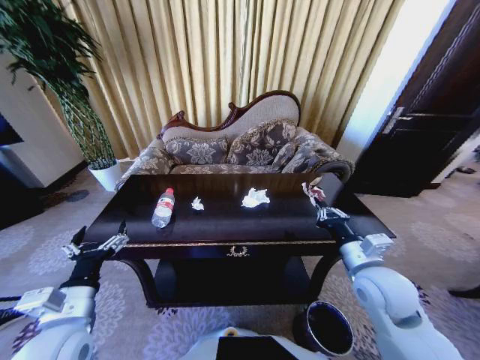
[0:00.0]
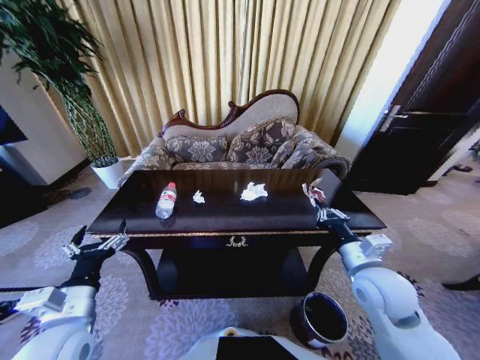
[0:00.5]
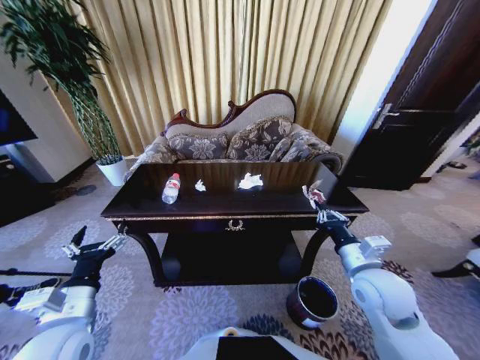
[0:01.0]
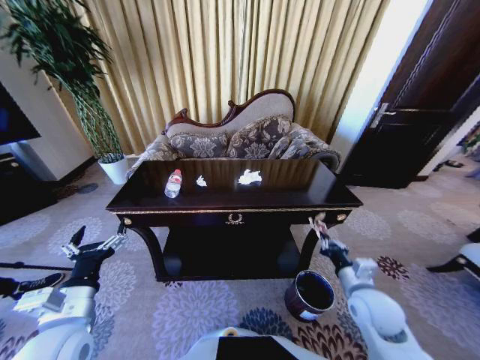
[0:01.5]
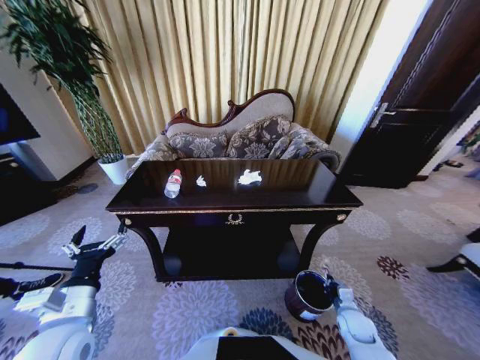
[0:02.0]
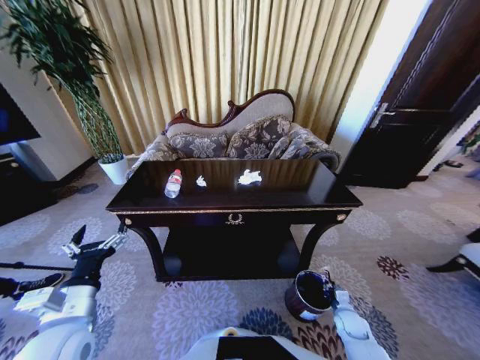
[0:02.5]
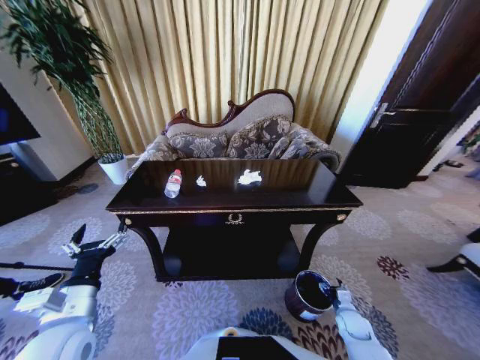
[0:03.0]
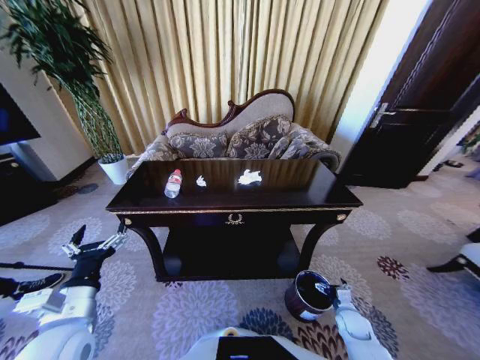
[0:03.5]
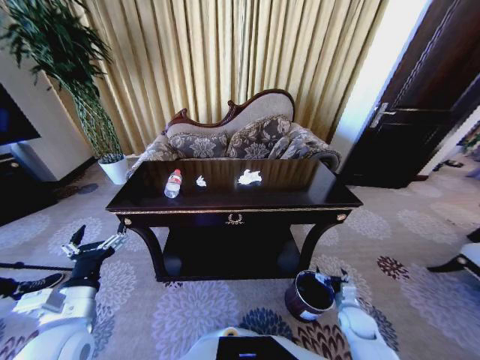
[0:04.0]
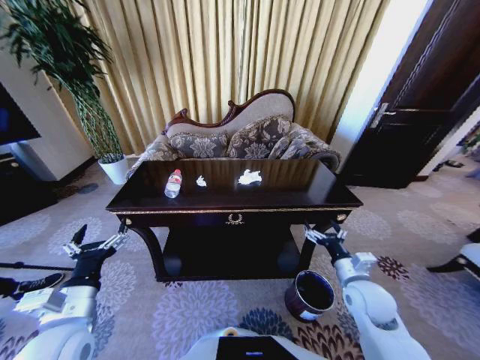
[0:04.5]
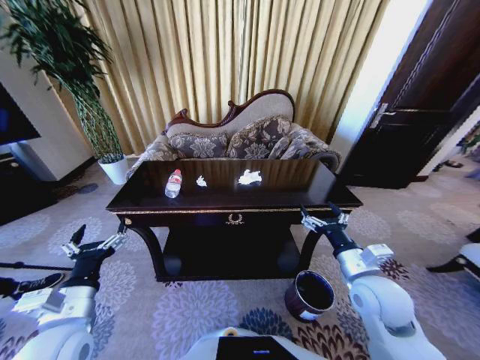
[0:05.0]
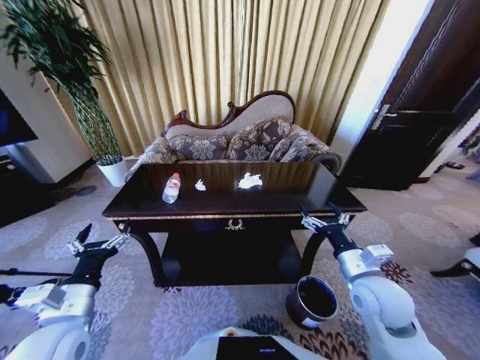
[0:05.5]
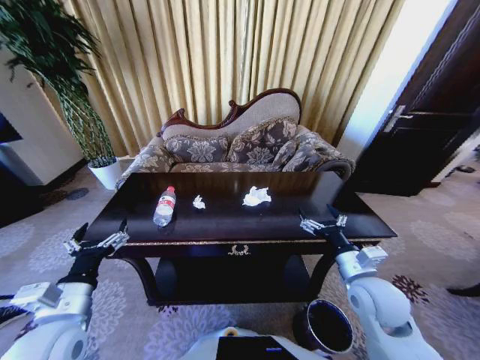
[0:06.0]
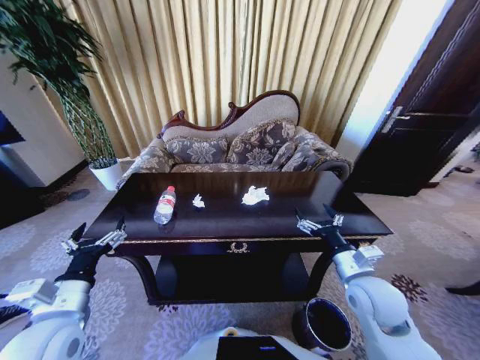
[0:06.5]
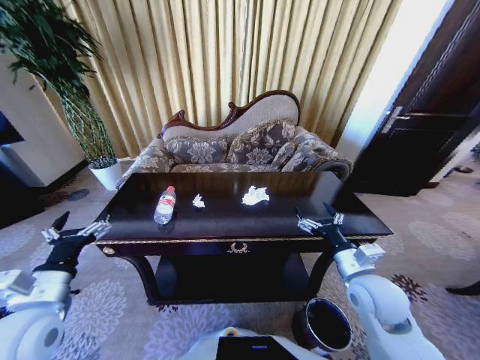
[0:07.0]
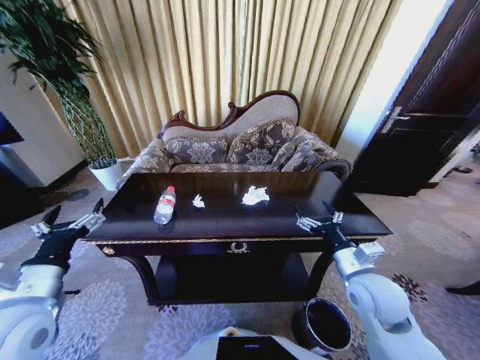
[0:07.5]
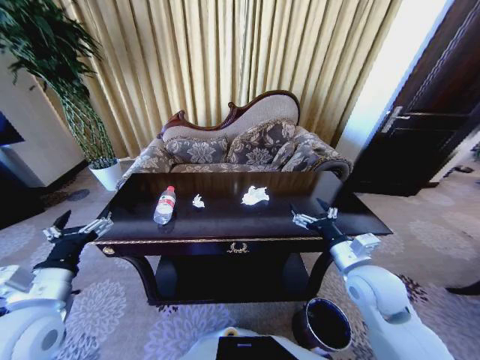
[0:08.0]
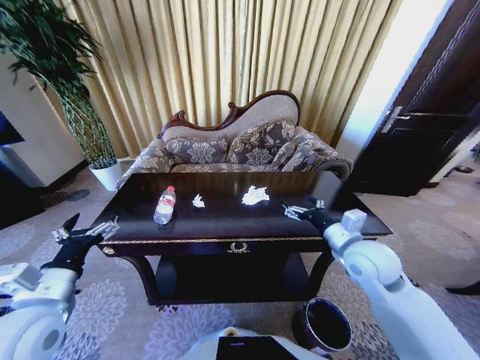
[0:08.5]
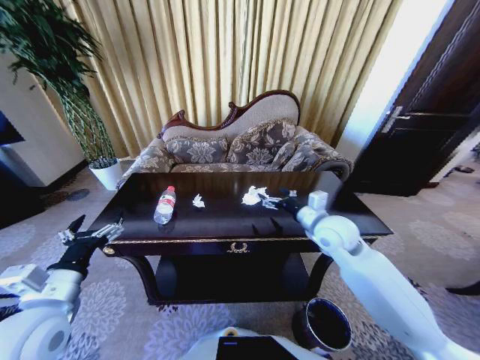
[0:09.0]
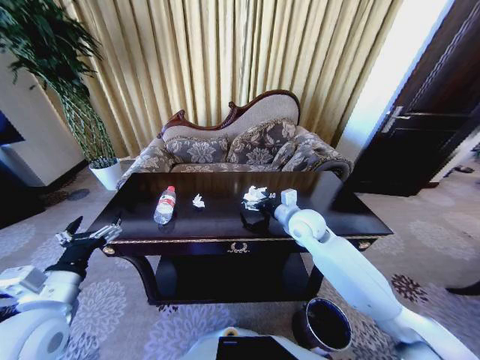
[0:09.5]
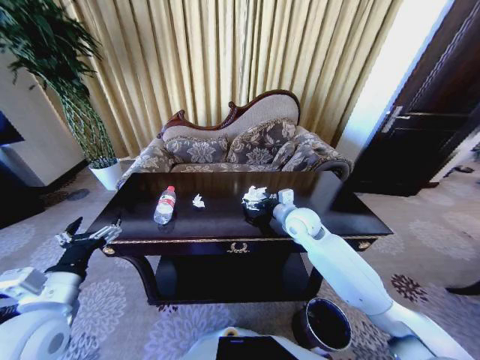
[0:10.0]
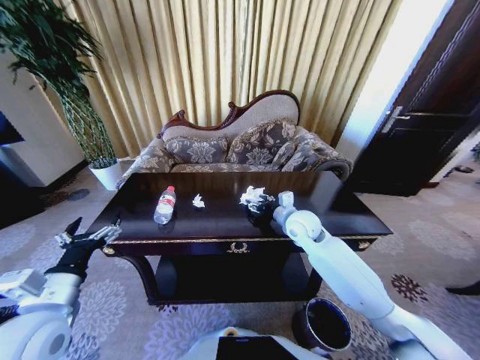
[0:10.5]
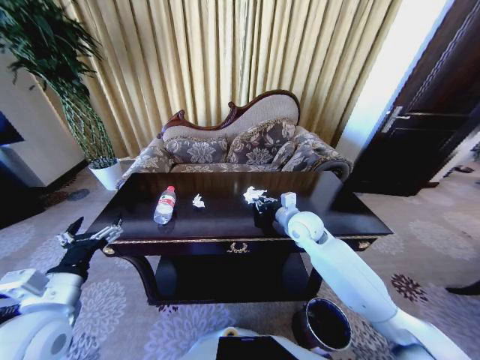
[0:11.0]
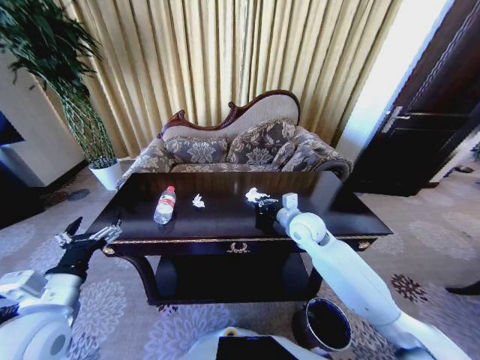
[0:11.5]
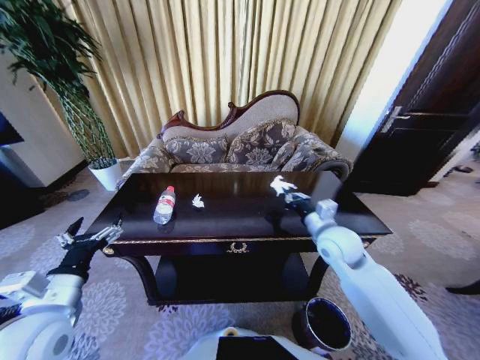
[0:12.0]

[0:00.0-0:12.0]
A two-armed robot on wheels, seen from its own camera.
Task of the whole recording: Move to the front of the table and place the trash on the table into the trash bin.
0:00.0 to 0:02.0: The right gripper moves downward, about 30 cm.
0:02.0 to 0:04.0: The right gripper opens.
0:04.0 to 0:06.0: The right gripper shifts approximately 25 cm upward.
0:08.0 to 0:10.0: The right gripper is displaced forward and to the left by roughly 20 cm.
0:10.0 to 0:12.0: The right gripper shifts some 10 cm backward and to the right, and closes up.

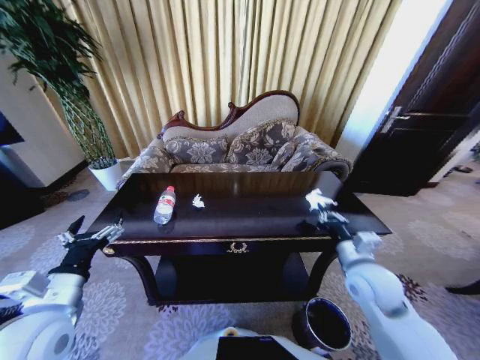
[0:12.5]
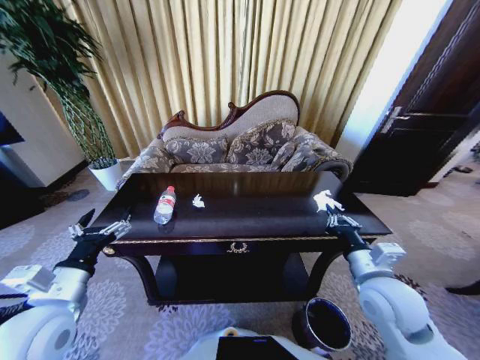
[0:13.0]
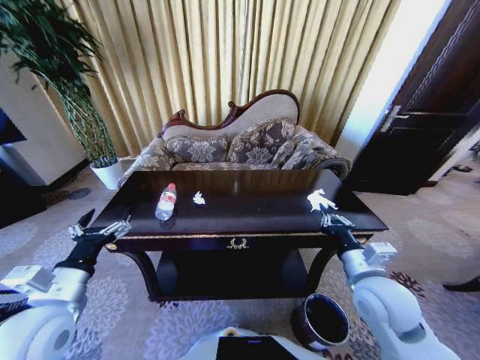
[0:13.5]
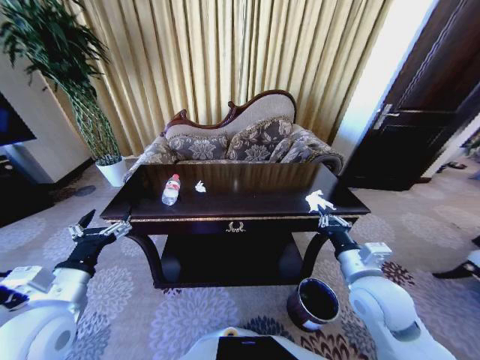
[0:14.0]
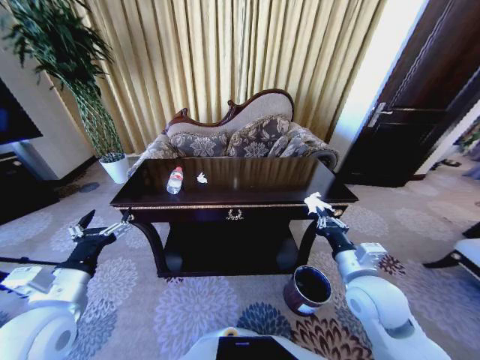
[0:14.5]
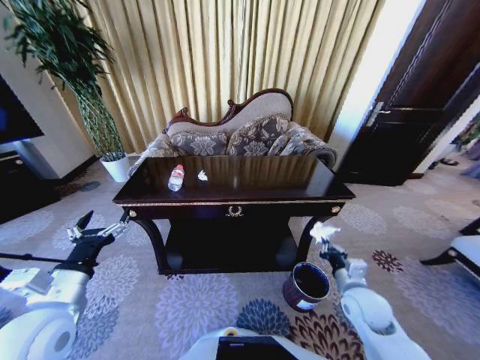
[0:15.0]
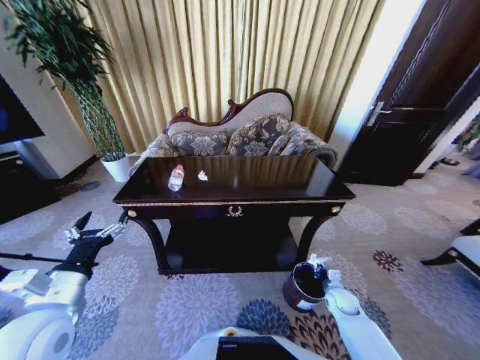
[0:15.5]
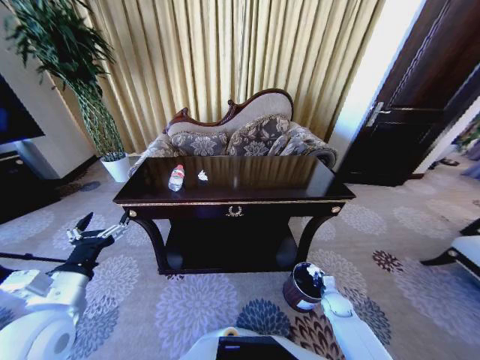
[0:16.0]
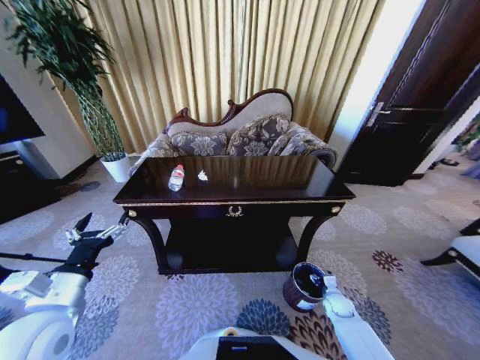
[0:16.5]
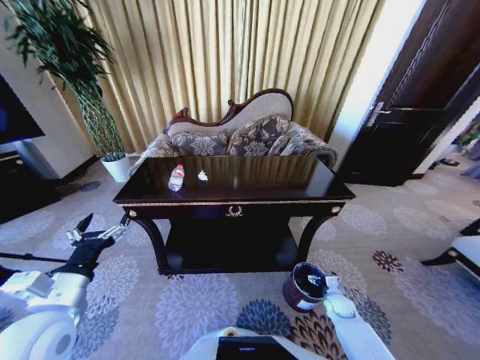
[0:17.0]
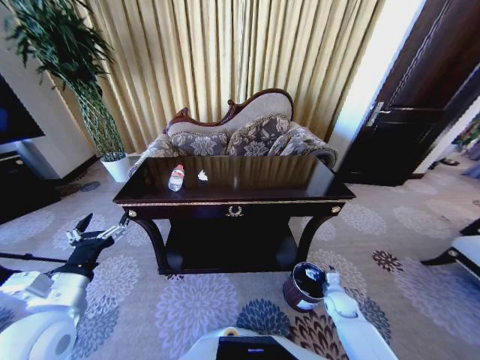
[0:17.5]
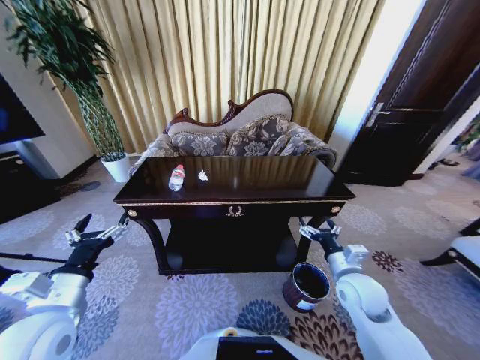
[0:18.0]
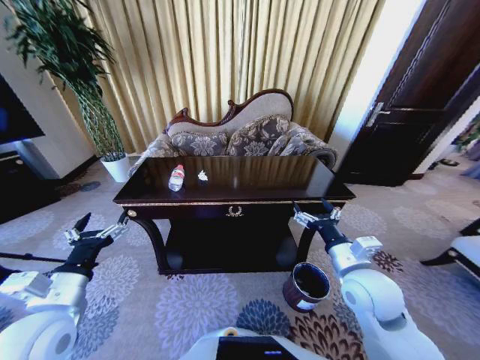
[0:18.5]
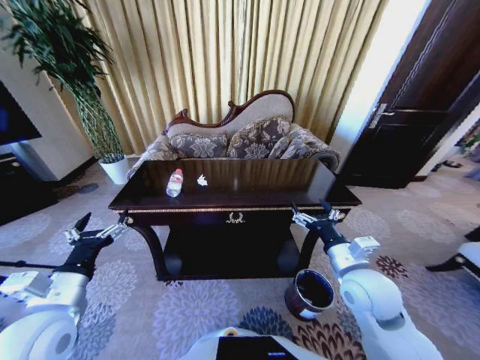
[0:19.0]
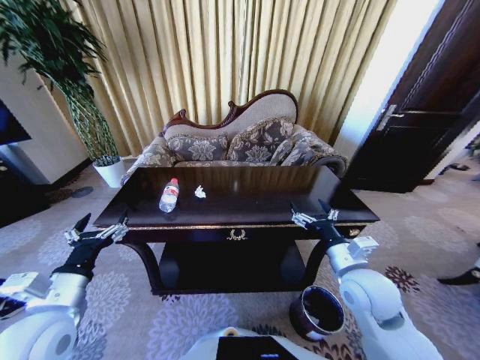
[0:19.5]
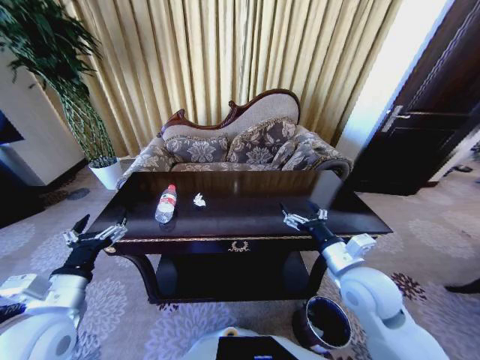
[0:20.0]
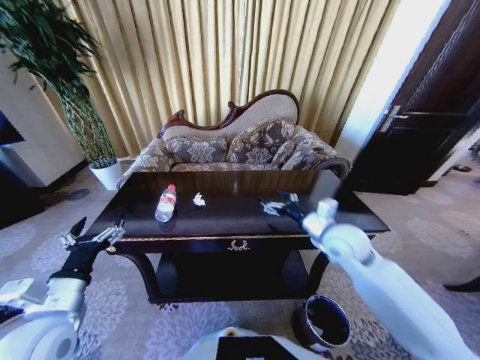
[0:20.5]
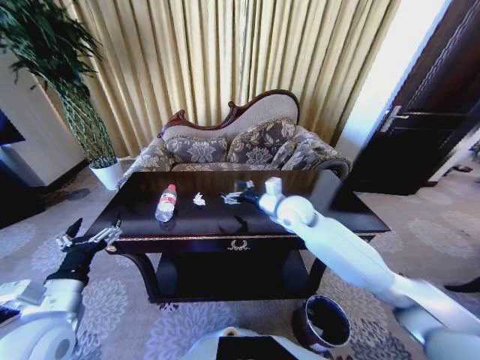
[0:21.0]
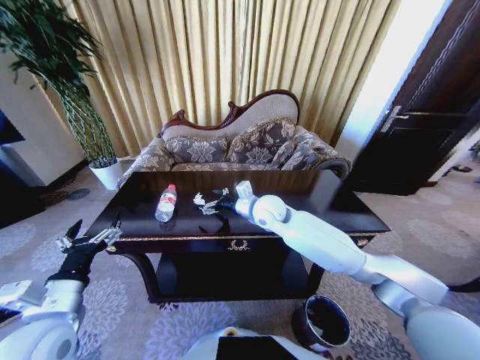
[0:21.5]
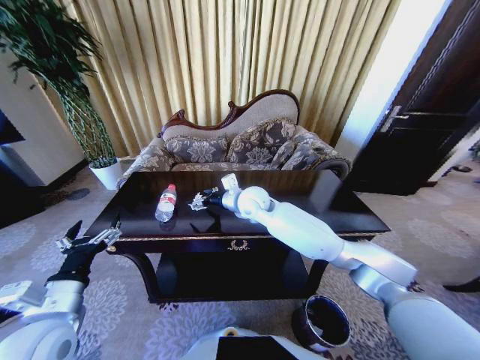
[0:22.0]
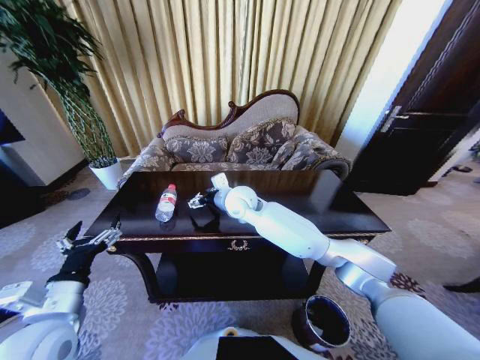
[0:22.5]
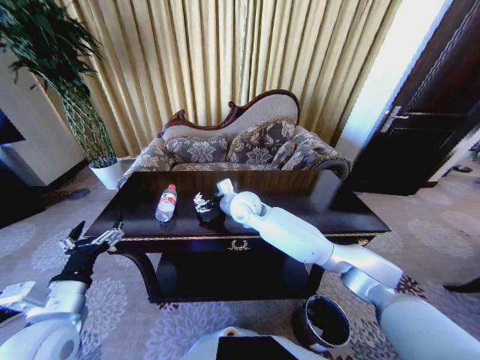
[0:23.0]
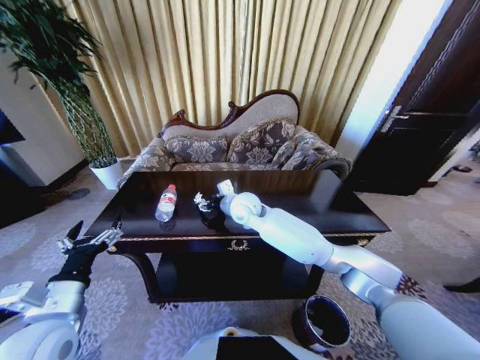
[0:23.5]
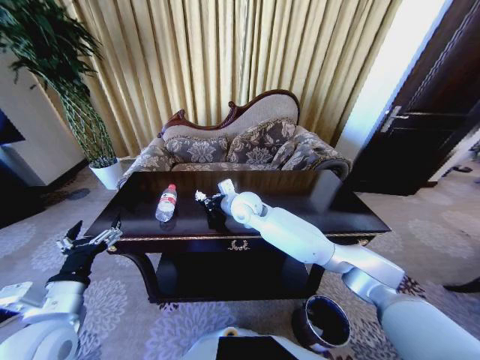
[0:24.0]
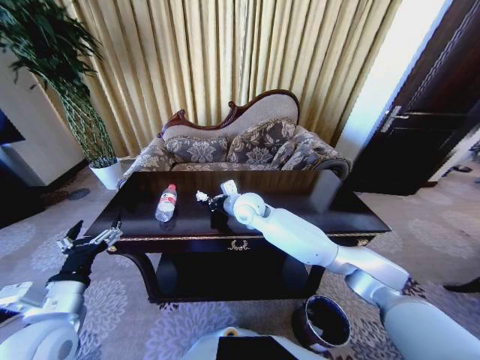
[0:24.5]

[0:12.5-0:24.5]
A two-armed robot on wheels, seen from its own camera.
Task of the whole recording: Move to the front of the table and place the trash on the table into the trash bin.
0:14.5 to 0:16.5: The right gripper moves downward, some 35 cm, and opens.
0:16.5 to 0:18.5: The right gripper shifts approximately 35 cm upward.
0:18.5 to 0:20.5: The right gripper is displaced forward by approximately 10 cm.
0:20.5 to 0:22.5: The right gripper travels to the left and forward by roughly 30 cm.
0:22.5 to 0:24.5: The right gripper closes its fingers.

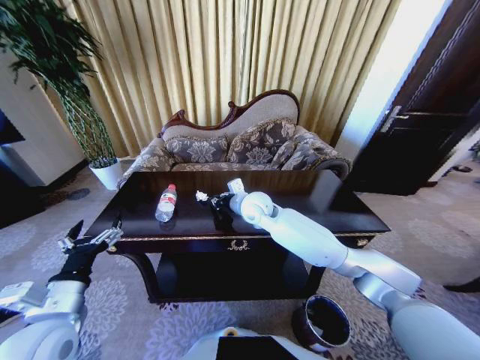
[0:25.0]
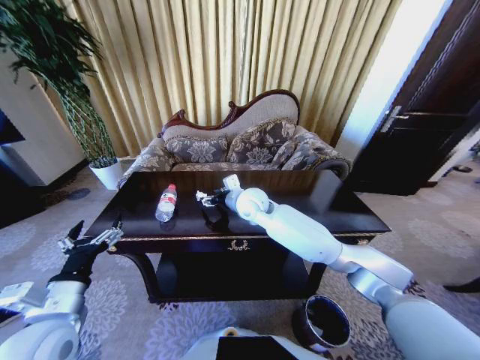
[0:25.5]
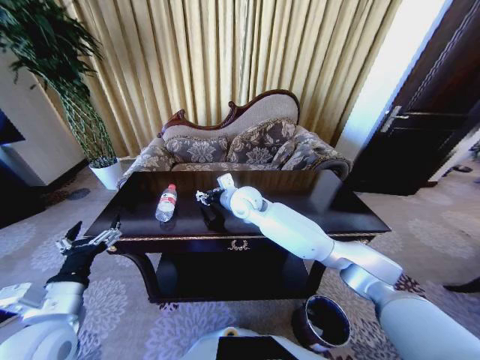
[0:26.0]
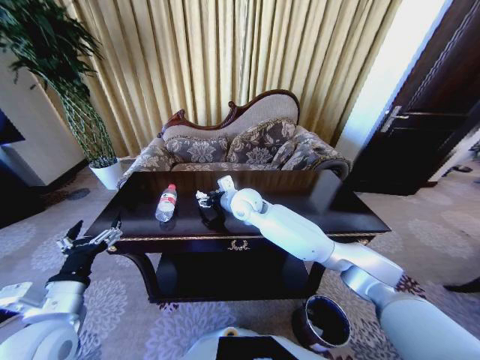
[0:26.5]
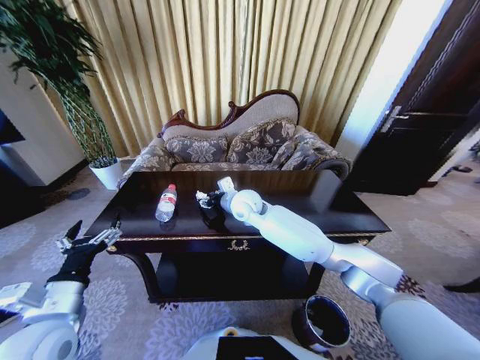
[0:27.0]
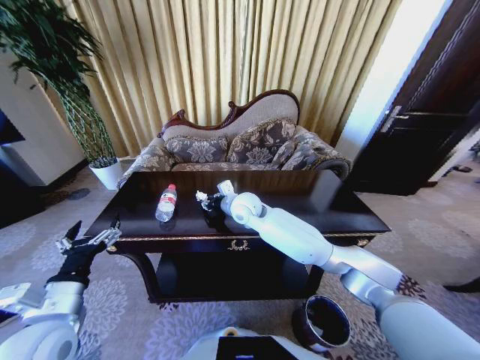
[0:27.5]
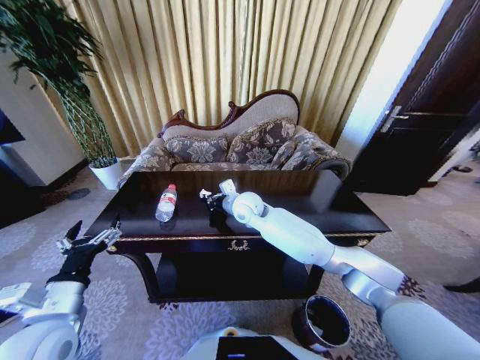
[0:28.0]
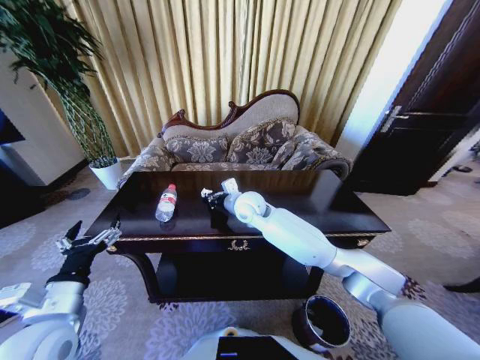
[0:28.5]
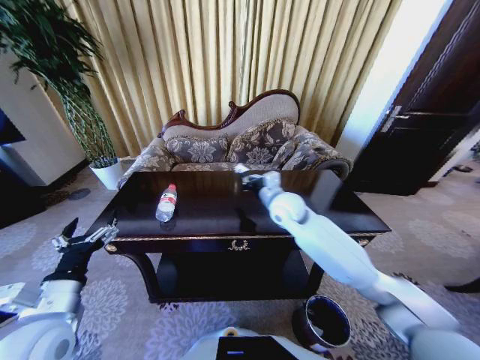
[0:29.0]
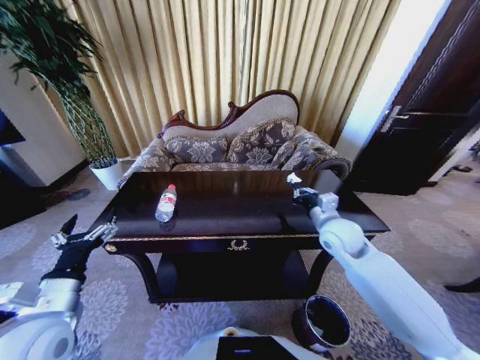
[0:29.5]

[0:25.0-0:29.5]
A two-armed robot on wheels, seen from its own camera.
Task of the whole recording: Move to the front of the table and place the trash on the table into the trash bin.
0:25.0 to 0:27.0: The right gripper opens.
0:27.0 to 0:29.5: The right gripper heads to the right and backward, covering about 25 cm, and closes its fingers.
